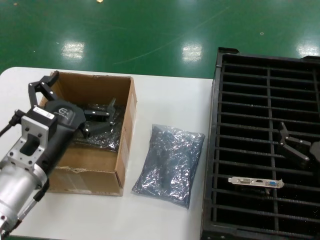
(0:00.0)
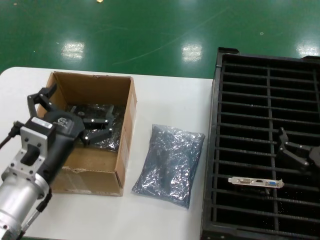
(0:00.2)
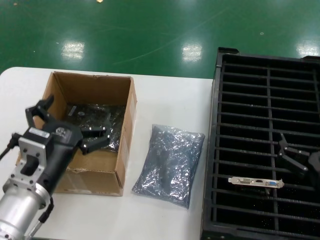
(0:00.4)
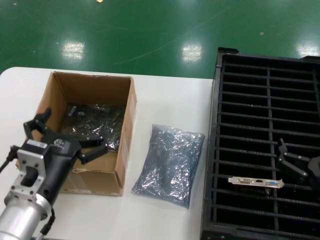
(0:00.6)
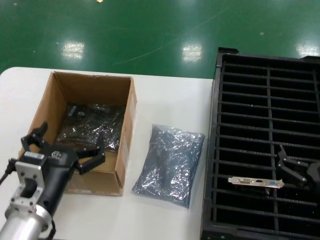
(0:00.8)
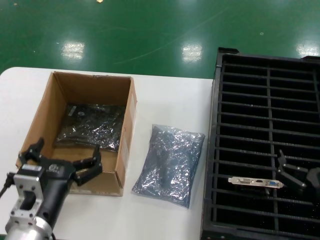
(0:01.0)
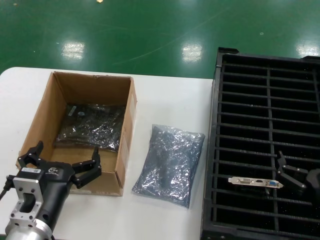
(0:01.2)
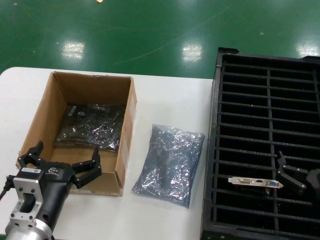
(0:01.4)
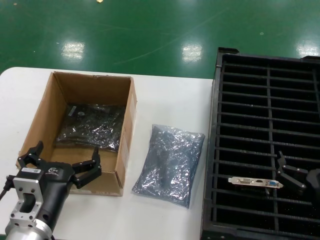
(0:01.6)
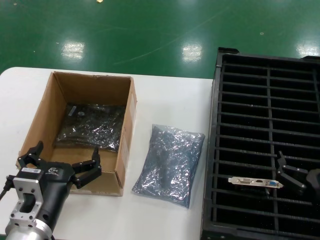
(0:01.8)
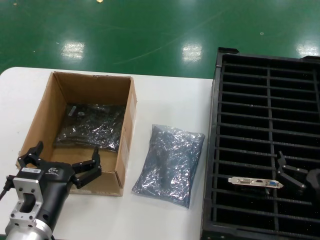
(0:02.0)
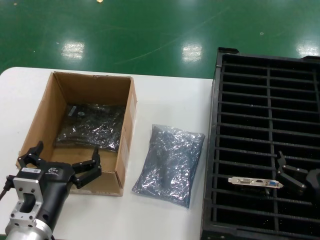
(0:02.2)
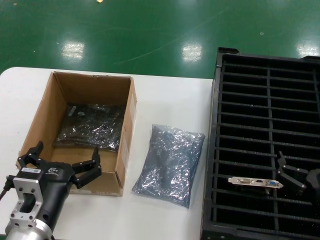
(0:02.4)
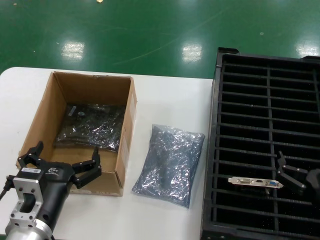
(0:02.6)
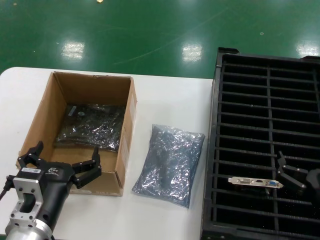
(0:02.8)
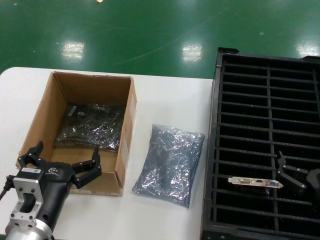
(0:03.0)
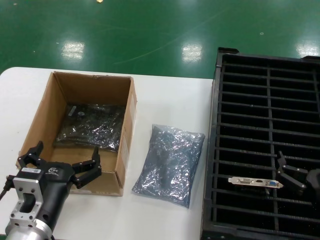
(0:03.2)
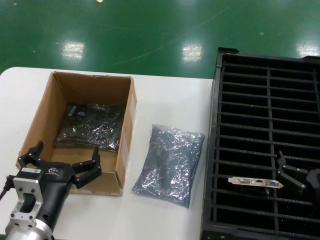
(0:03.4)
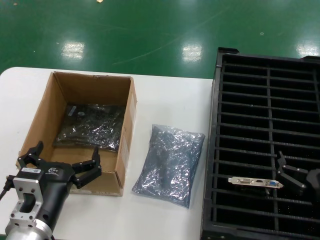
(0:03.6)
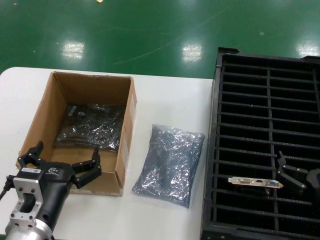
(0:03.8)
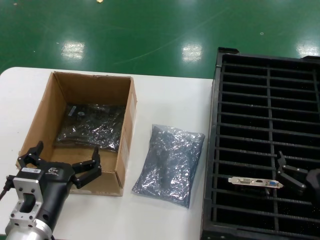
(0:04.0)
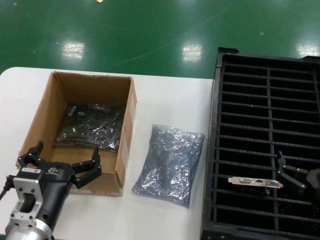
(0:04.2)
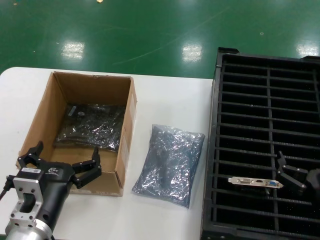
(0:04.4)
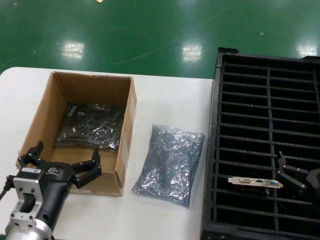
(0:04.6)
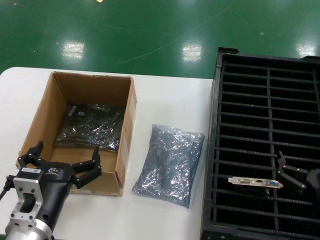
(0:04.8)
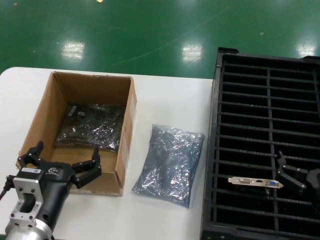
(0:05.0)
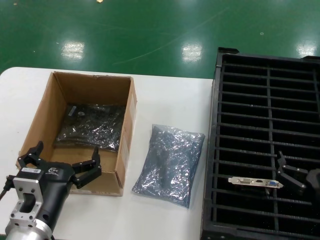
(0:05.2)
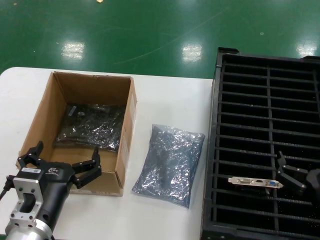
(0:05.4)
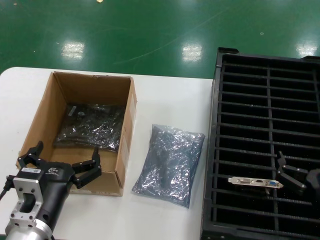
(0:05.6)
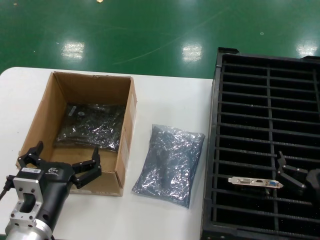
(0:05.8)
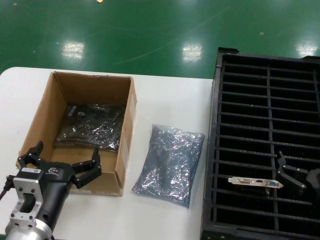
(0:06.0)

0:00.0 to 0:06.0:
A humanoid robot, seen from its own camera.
Task of the whole recording: take out graphics card from box remove packaging put into black container.
0:00.0 to 0:01.6: The left hand shifts approximately 10 cm downward.
0:01.6 to 0:06.0: Both hands stay about where they are.
